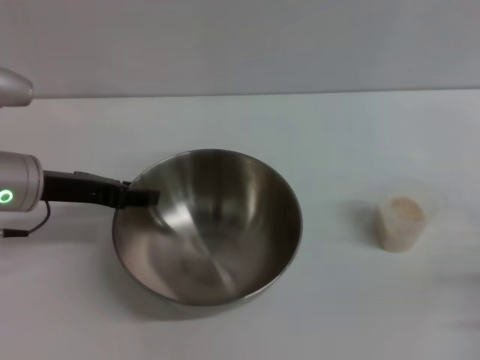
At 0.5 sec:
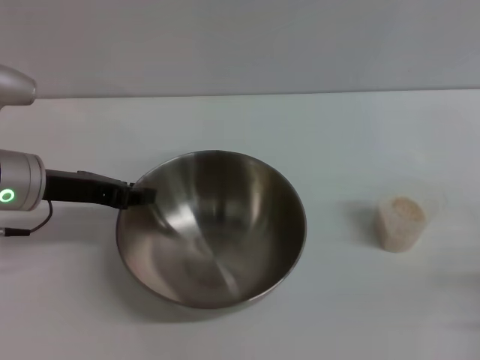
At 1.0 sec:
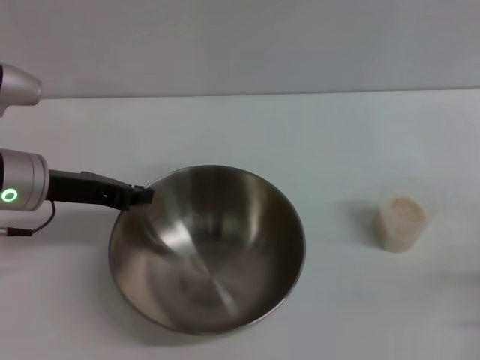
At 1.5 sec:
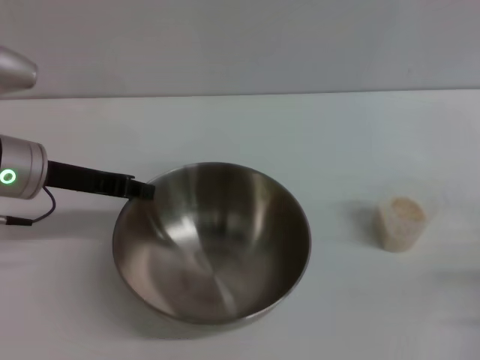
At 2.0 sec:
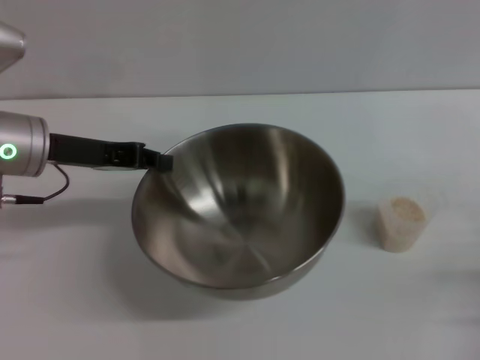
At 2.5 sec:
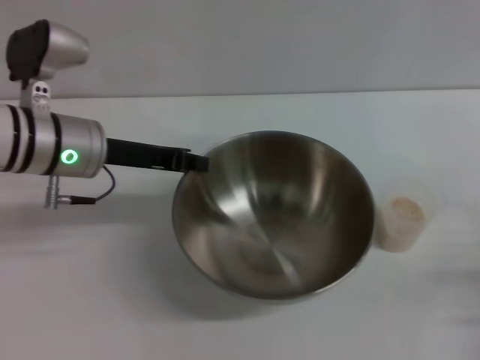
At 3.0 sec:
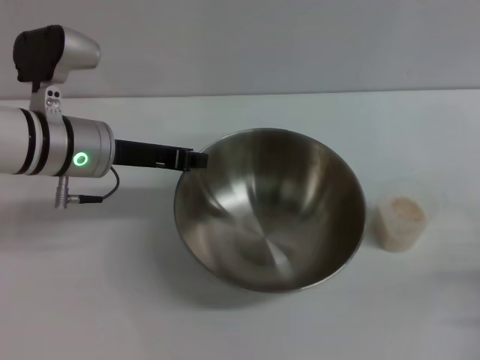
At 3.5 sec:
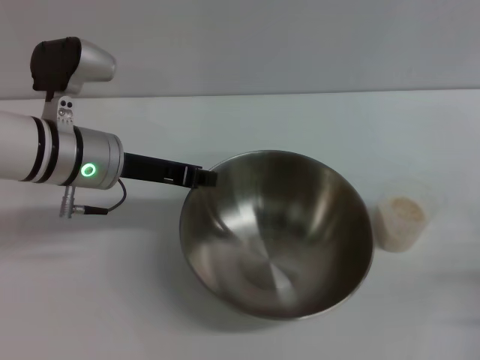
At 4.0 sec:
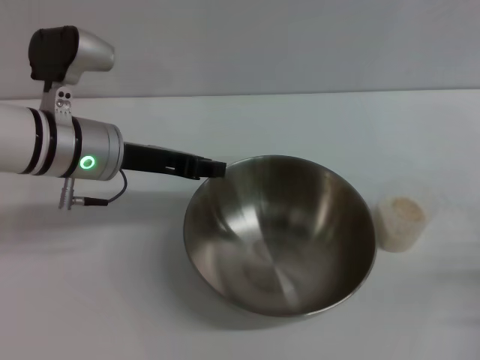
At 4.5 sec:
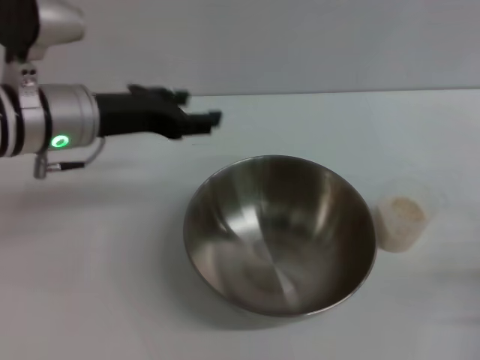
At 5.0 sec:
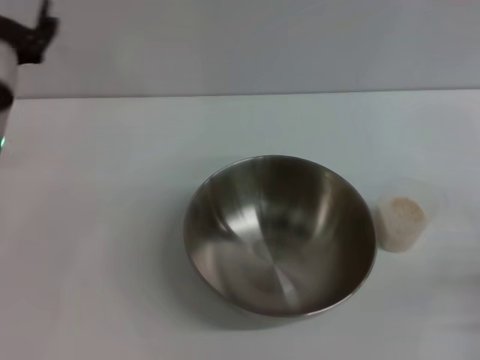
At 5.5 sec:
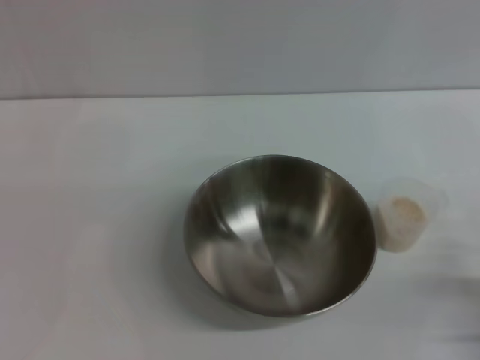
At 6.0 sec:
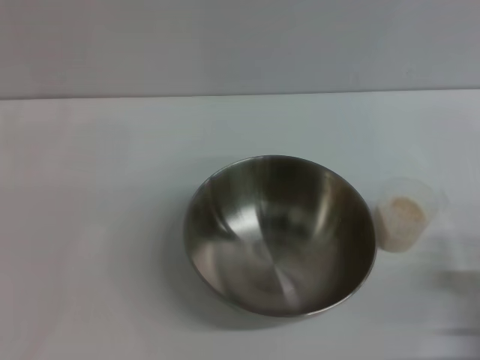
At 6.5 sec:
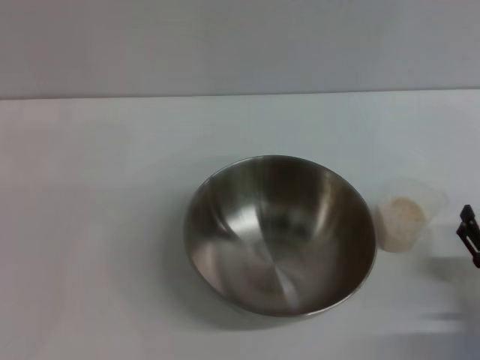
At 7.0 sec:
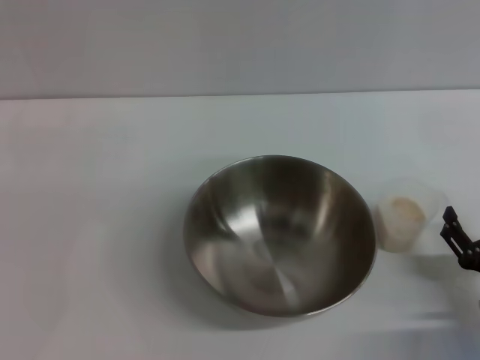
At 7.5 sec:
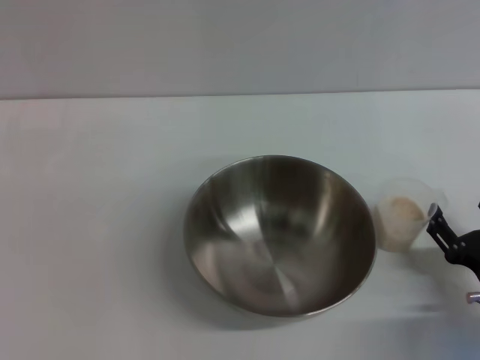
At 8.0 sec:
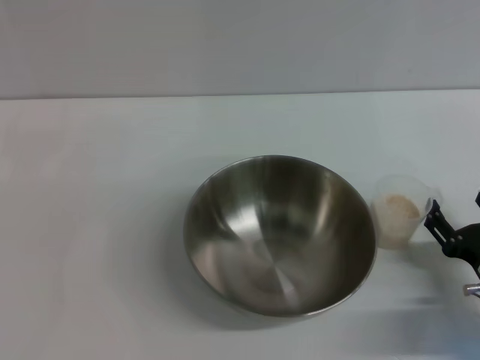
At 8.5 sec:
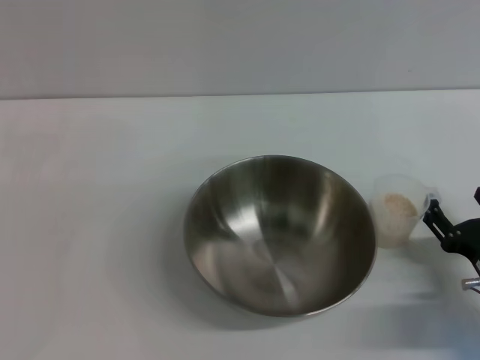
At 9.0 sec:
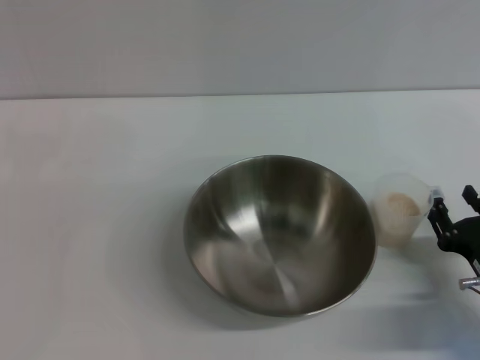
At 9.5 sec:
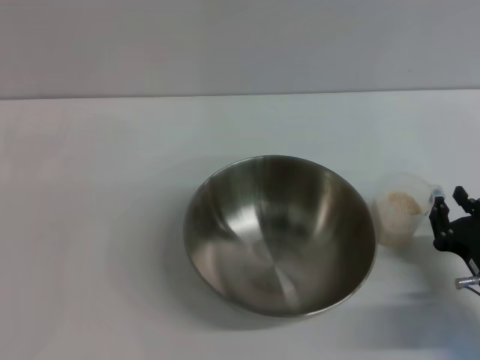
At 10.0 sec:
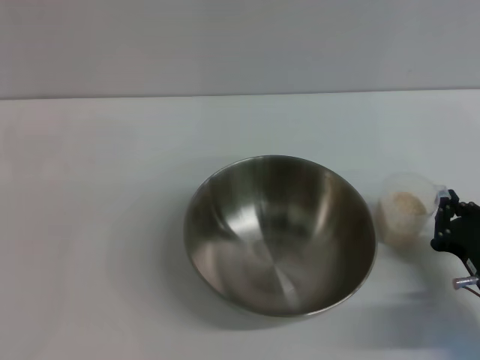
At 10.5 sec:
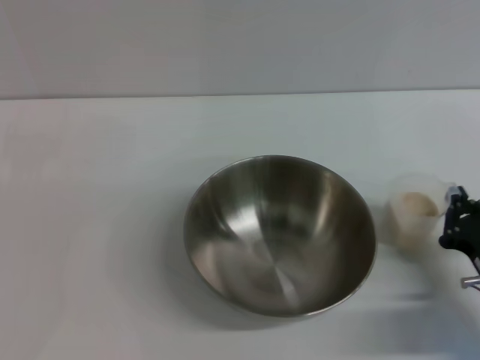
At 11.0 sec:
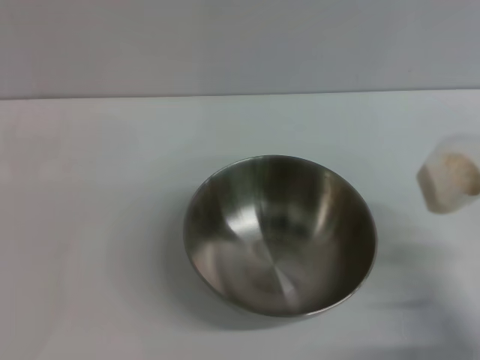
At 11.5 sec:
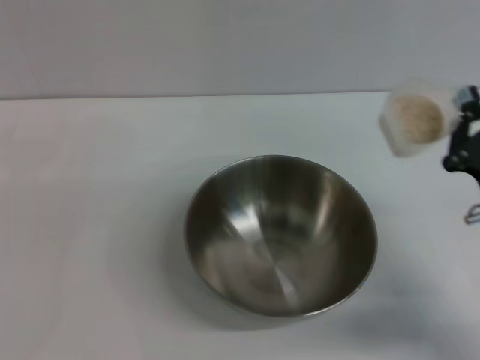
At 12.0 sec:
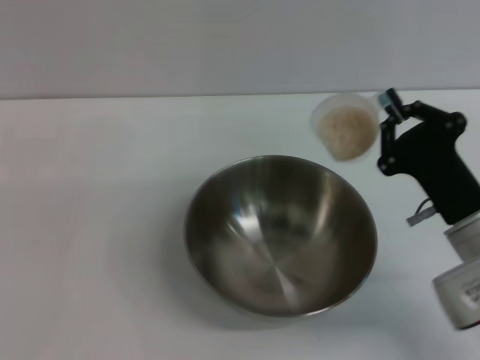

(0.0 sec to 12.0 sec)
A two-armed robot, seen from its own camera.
Task of the whole recording: Place the bowl in the middle of the table with one hand and pour the rice from the grain cup into it with the other hand.
Step, 0.0 sec - 2.0 sec: Pick up the bowl with the left gripper.
Step, 2.5 sec - 4.0 sec: Place the bowl in the center of view with the left gripper.
Step, 4.5 sec - 11.0 sec: Pick up the cup with rice in it with the right gripper.
0.0 sec - 2.0 sec: The left gripper closes up.
2.0 sec - 4.0 sec: The left gripper heads to the right, covering roughly 5 cm.
4.0 sec - 6.0 sec: The left gripper travels to the left, backward and downward by some 20 cm, and opens up.
6.0 sec - 8.0 sec: The right gripper shifts by about 5 cm.
8.0 sec - 10.0 sec: The right gripper closes its fingers.
10.0 sec - 12.0 sec: The right gripper goes roughly 5 cm upward.

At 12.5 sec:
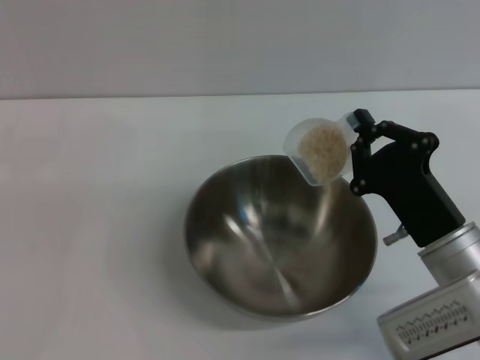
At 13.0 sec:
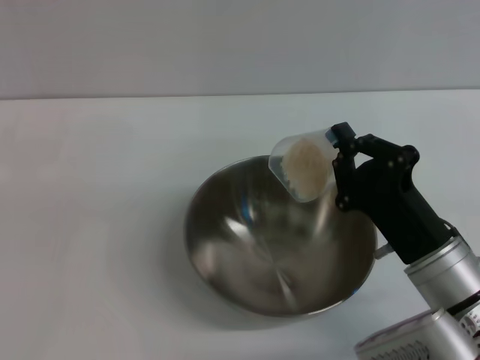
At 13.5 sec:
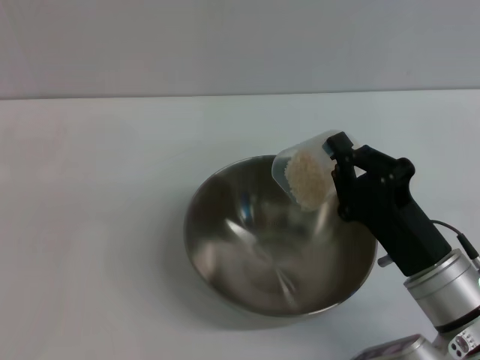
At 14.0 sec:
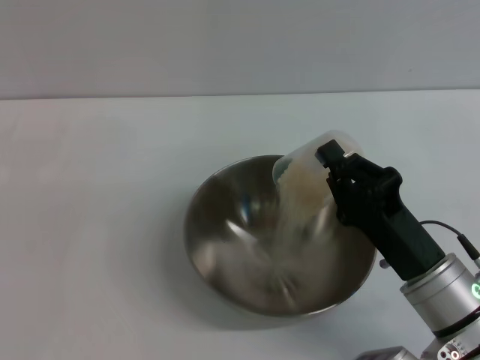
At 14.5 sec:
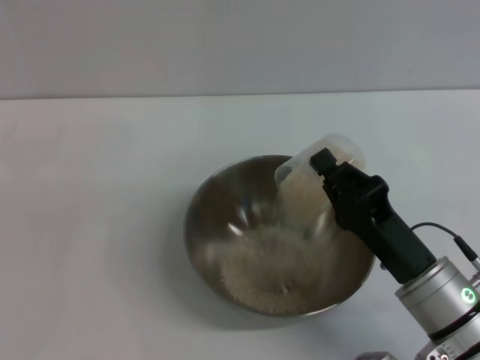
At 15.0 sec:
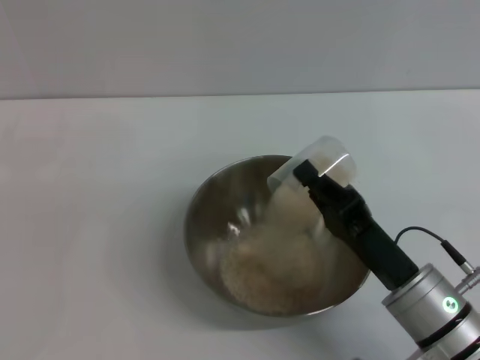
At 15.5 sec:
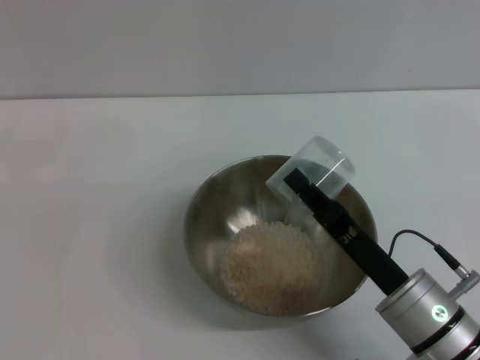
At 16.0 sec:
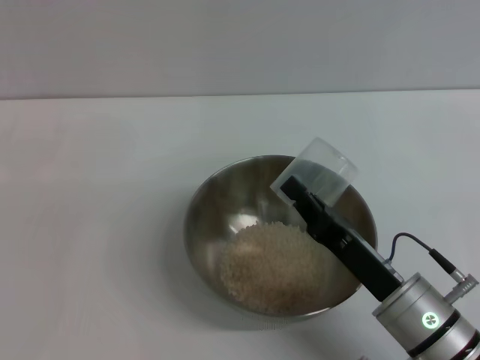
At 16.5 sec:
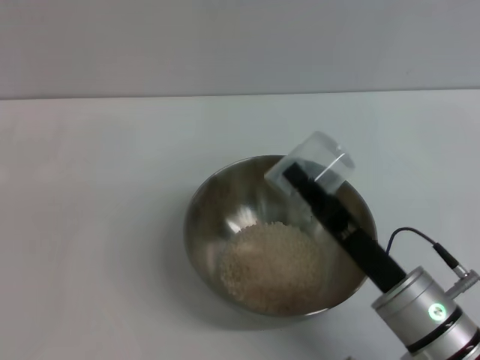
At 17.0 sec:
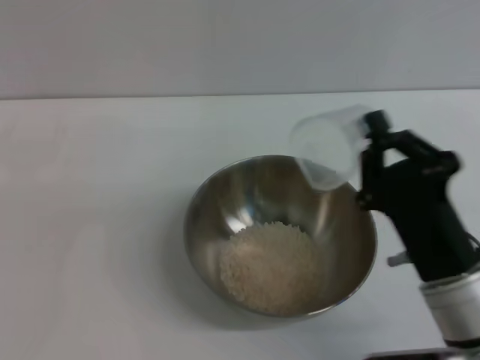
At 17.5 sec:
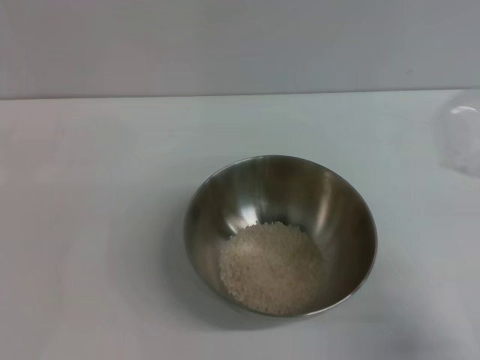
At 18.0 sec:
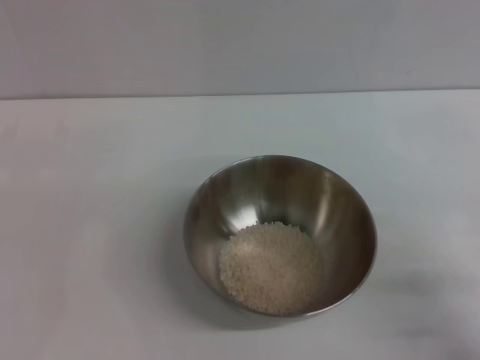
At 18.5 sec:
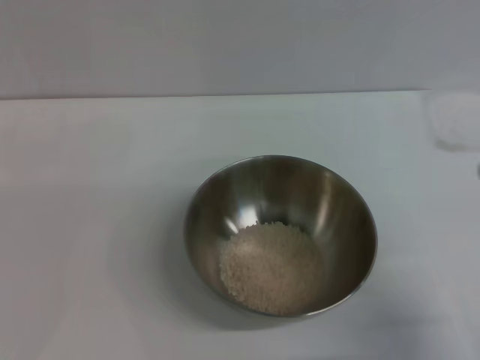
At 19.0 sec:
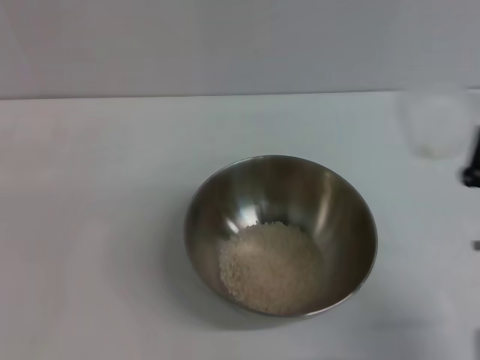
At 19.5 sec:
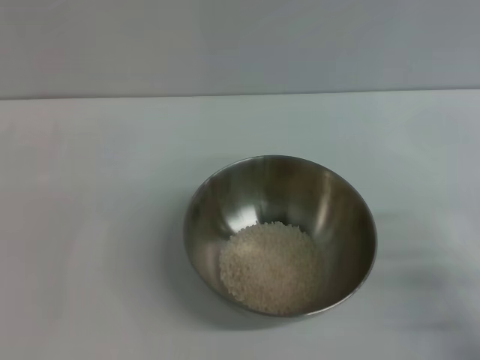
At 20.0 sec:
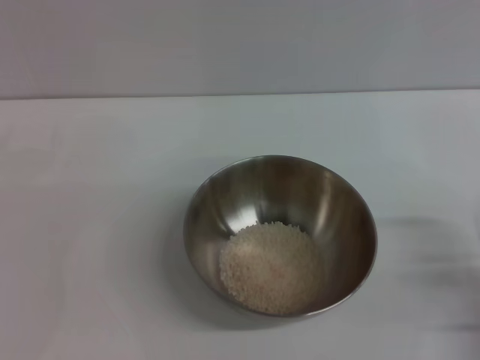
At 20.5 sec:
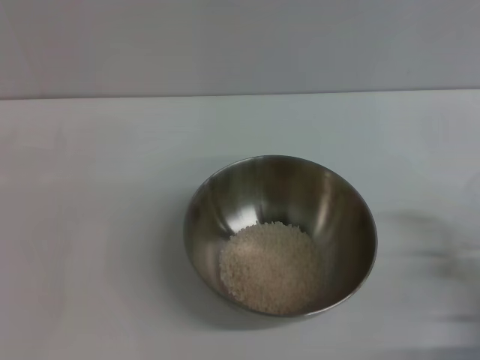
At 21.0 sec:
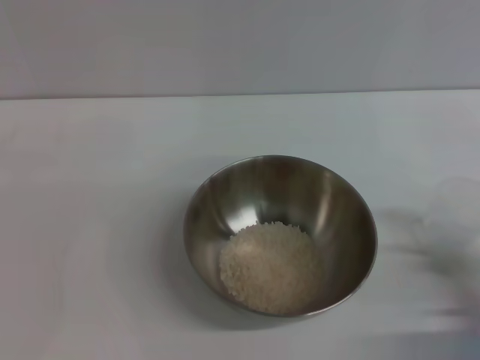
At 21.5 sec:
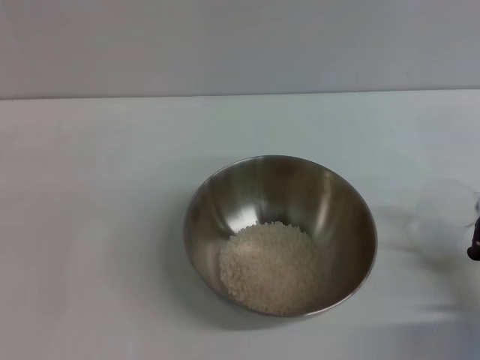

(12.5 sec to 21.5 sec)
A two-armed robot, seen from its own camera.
Task of the whole recording: Place the bowl in the middle of the table with one hand and pour the rice from the grain cup into it with the other hand.
Step, 12.5 sec - 16.0 sec: Pour the rice from the cup into the bowl with the right gripper.
17.0 sec - 19.5 sec: The right gripper goes left and right, some 15 cm each way, reversing 2 times.
19.5 sec - 21.5 sec: The right gripper shifts by about 5 cm.

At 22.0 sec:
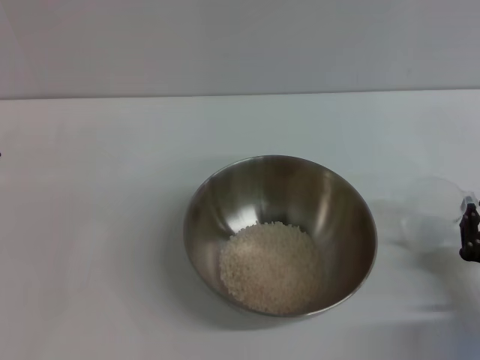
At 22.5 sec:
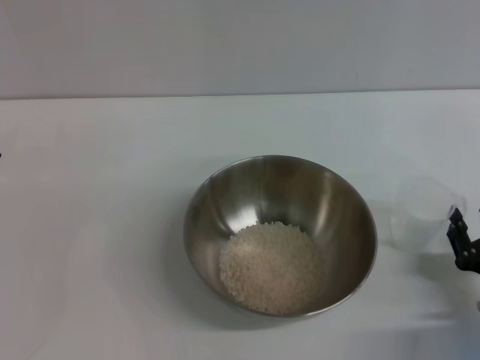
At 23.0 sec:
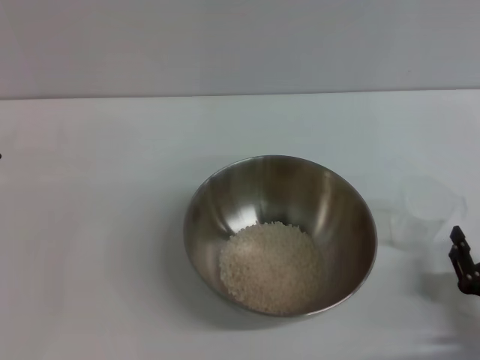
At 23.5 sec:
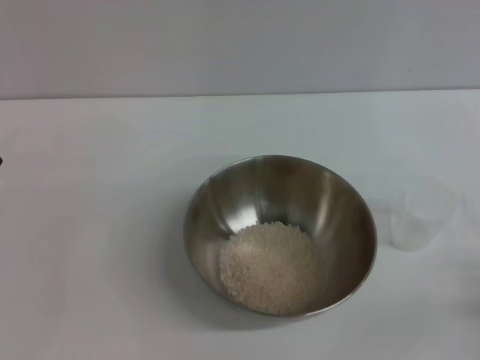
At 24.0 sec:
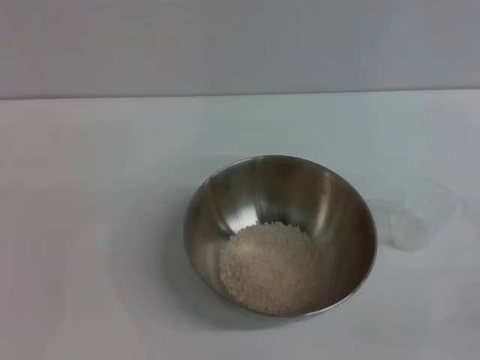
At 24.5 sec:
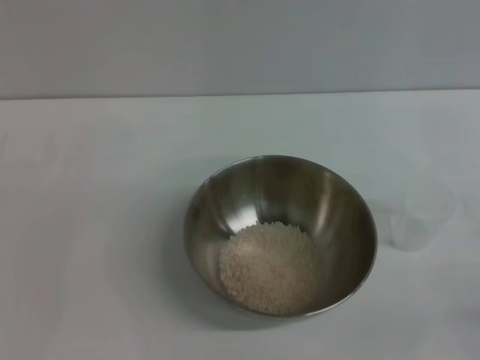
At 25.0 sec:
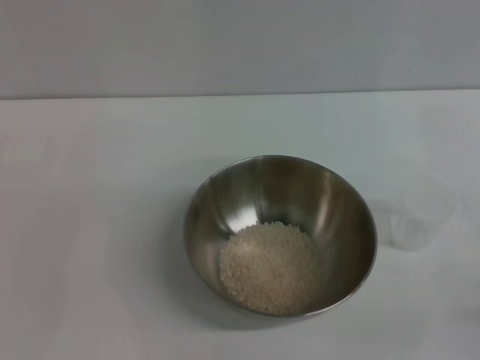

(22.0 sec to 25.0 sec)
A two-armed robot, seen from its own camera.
Task of the whole recording: Place the bowl in the middle of the table with one hand and pour the rice from the grain cup into it with the other hand.
22.0 sec - 23.5 sec: The right gripper goes about 10 cm backward, and opens its fingers.
